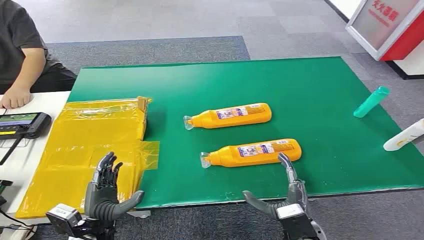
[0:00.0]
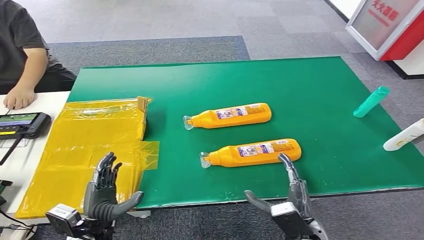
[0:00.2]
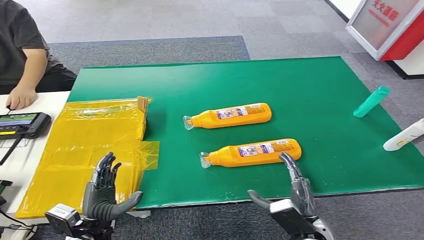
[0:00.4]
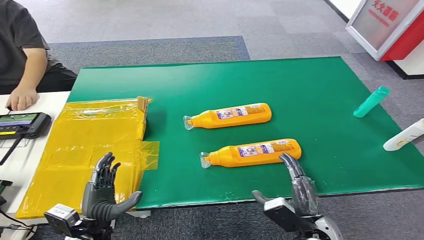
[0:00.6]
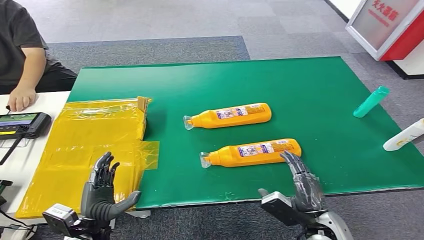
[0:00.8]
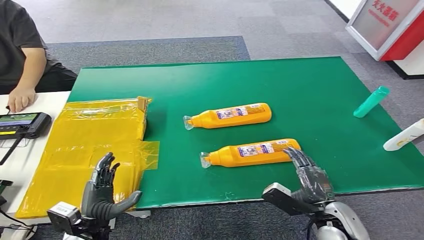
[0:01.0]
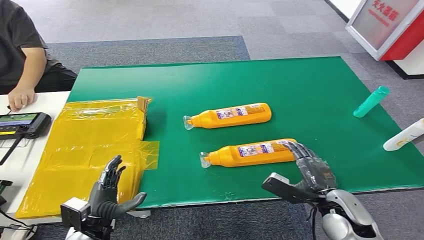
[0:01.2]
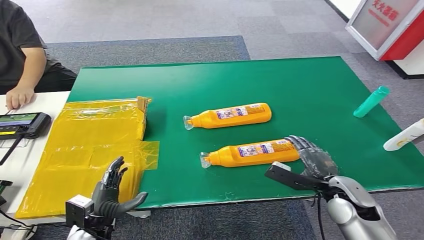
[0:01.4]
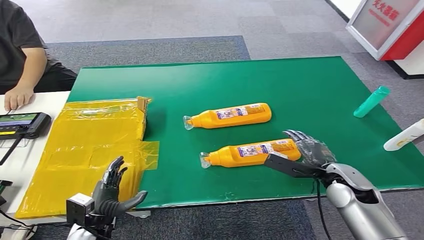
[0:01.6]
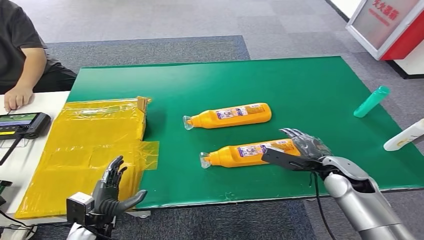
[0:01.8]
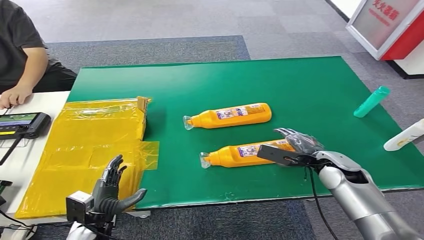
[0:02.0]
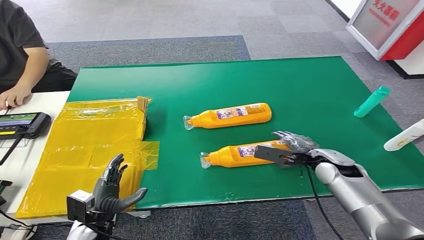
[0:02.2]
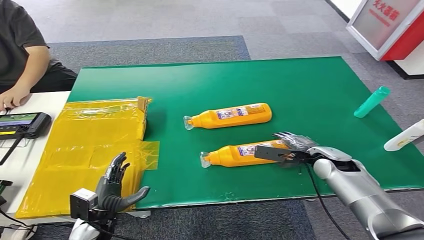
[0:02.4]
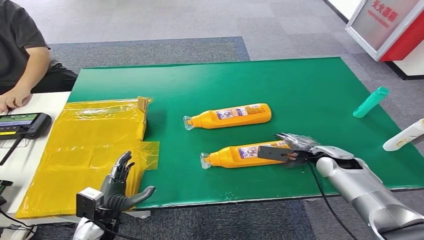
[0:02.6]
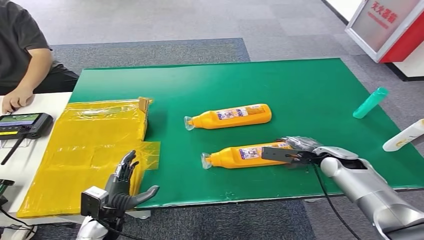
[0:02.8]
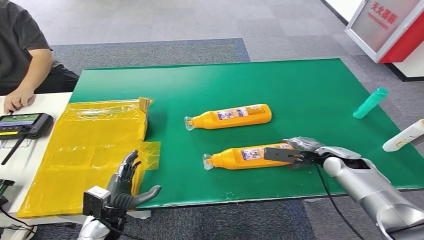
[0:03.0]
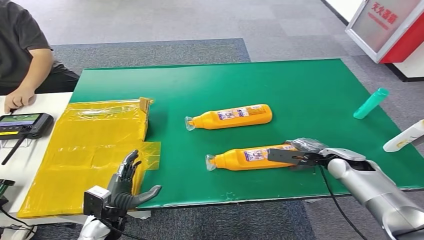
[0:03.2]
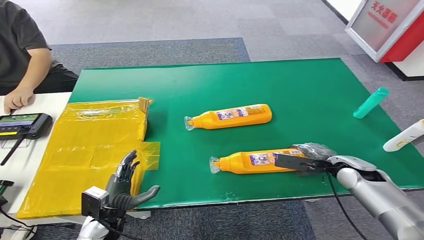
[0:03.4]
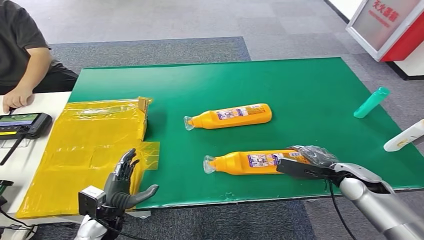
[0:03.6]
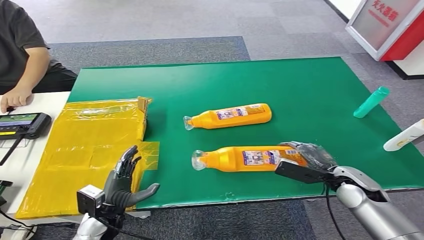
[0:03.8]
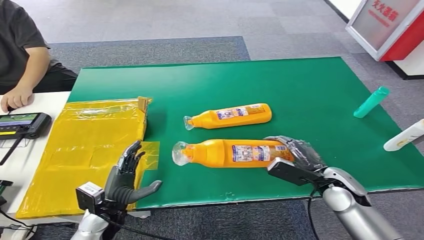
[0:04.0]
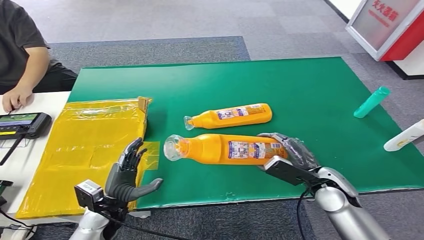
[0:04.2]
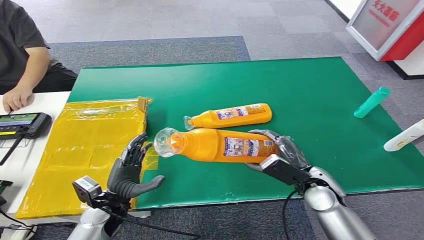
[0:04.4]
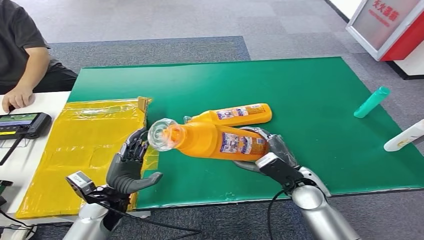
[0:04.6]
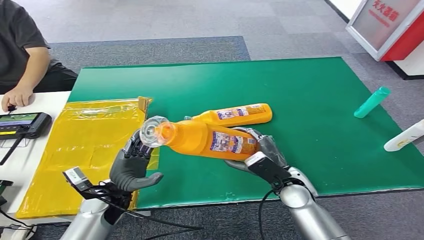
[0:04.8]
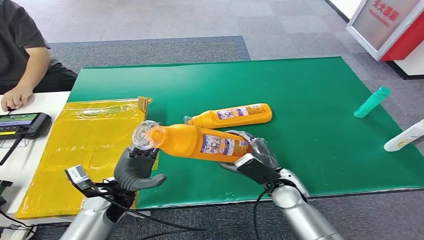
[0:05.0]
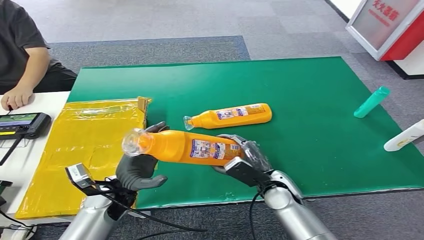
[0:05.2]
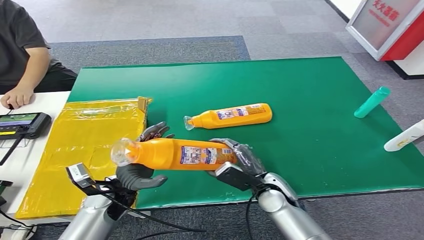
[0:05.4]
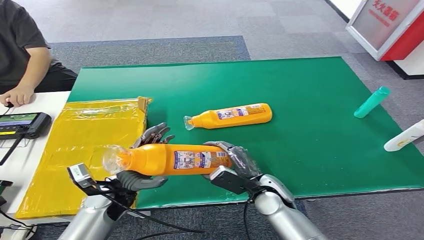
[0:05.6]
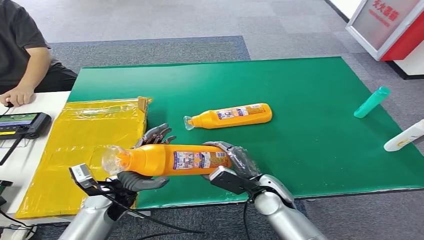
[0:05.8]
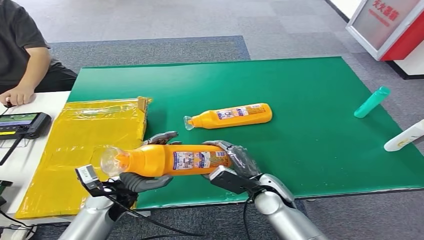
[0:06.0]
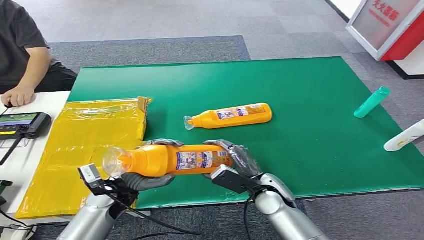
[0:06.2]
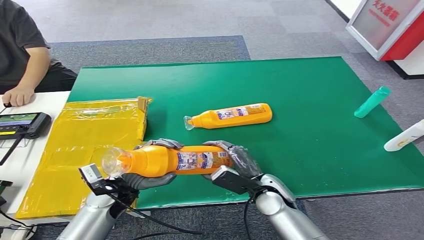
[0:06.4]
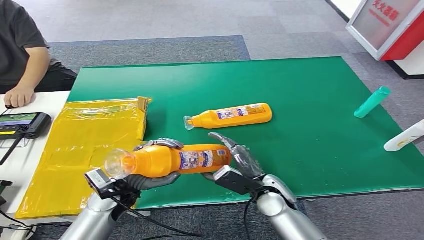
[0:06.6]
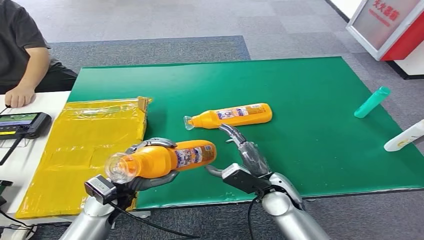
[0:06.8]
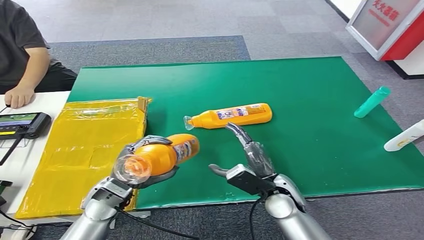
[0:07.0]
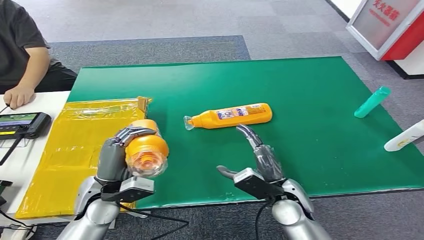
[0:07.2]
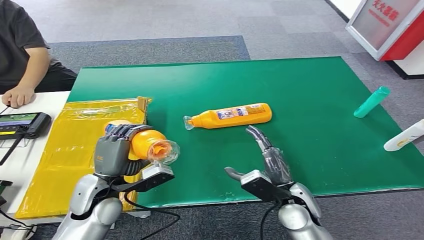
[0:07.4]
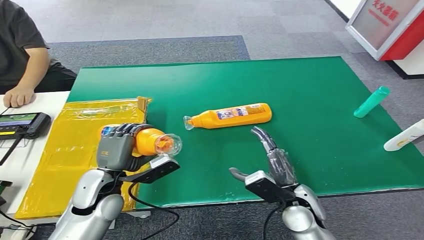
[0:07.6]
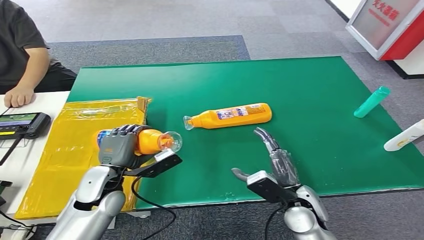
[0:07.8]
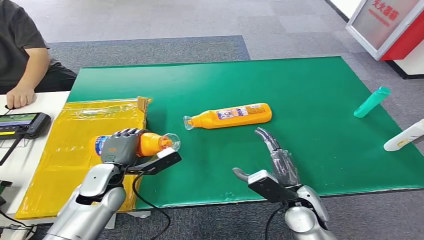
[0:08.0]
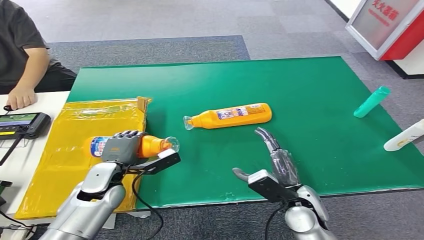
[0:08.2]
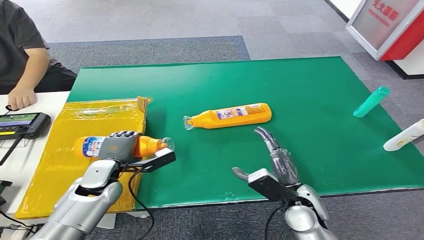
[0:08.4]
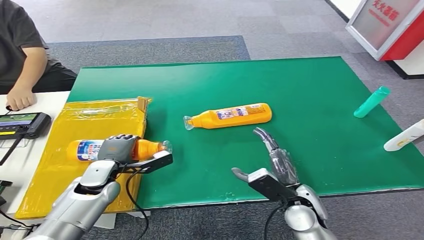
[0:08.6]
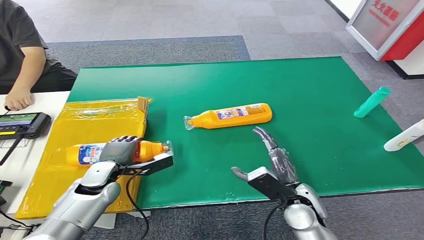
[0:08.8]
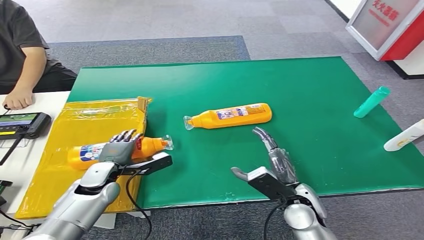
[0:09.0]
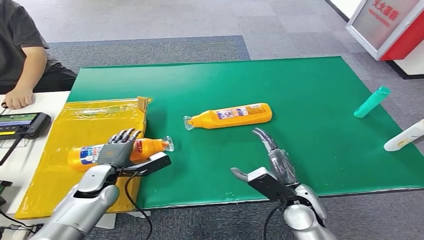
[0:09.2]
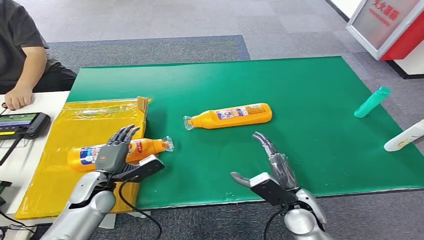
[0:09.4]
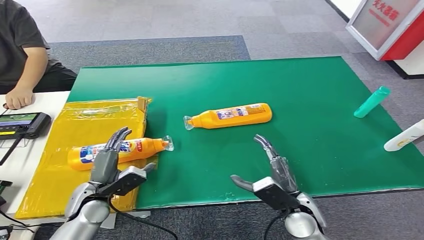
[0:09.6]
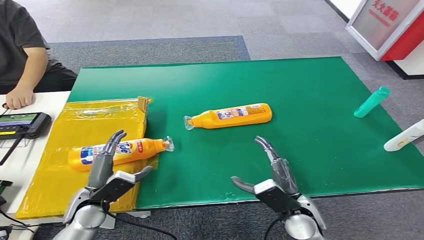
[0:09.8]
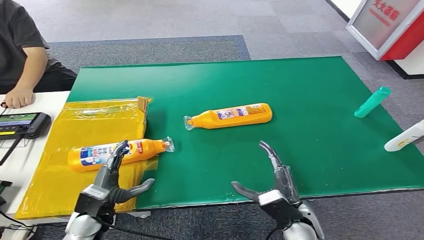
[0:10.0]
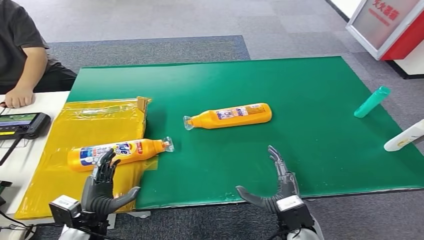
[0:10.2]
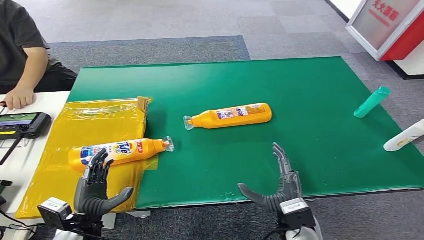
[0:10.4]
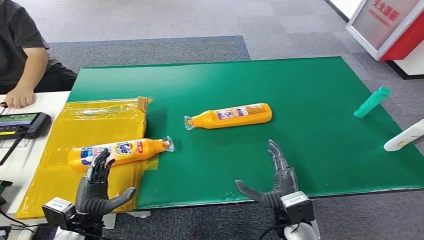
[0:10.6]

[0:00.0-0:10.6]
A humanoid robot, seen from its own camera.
Step, 0:00.0 to 0:04.2: Pick up the bottle from the table.
Step, 0:04.4 to 0:10.6: Turn the bottle to the front side.
0:01.6 to 0:03.0: The right hand heads forward, covering roughly 10 cm.
0:04.6 to 0:06.0: The right hand travels to the left by about 5 cm.
0:06.0 to 0:07.6: The right hand changes place by approximately 5 cm. The left hand goes some 5 cm upward.
0:07.6 to 0:09.0: The left hand is displaced downward and forward by some 10 cm.
0:09.0 to 0:10.6: The right hand ends up about 5 cm from where it was. The left hand goes some 15 cm backward.
